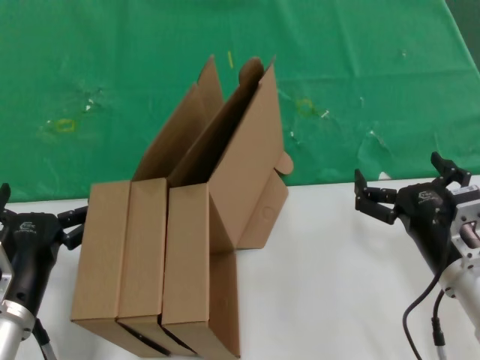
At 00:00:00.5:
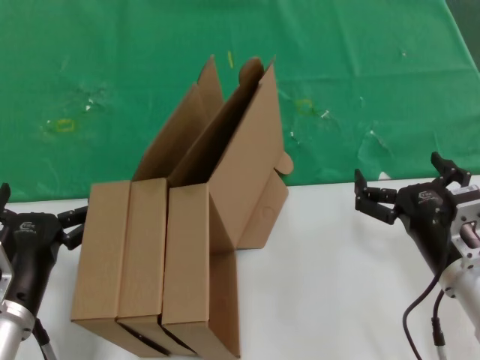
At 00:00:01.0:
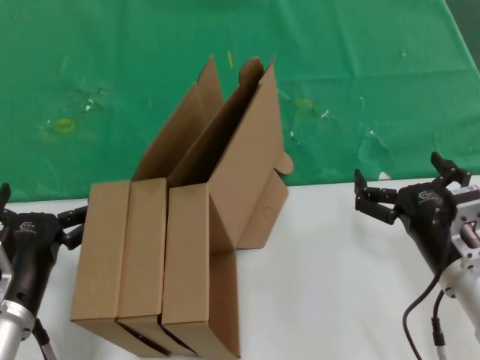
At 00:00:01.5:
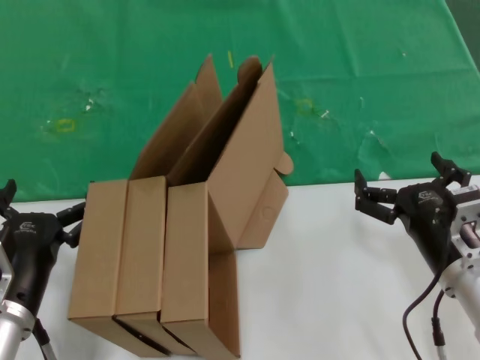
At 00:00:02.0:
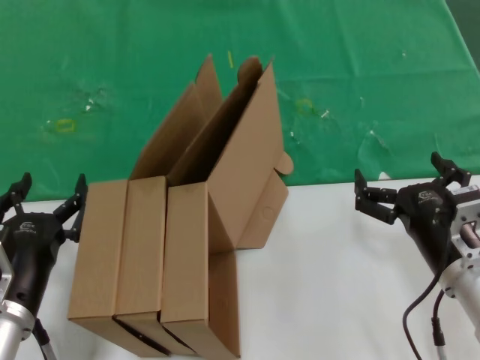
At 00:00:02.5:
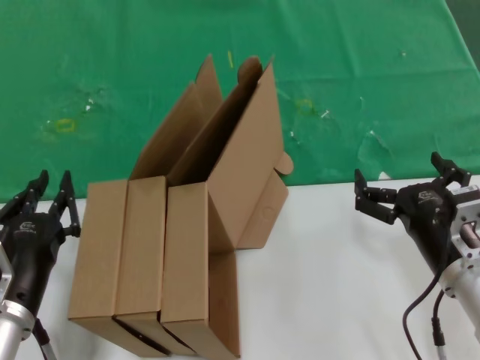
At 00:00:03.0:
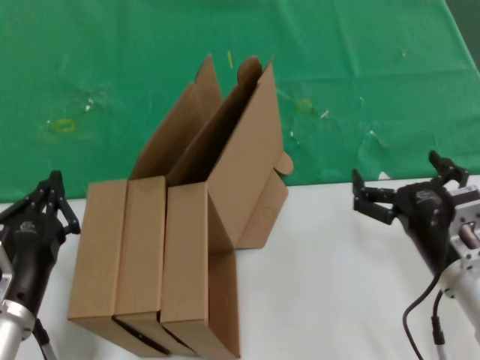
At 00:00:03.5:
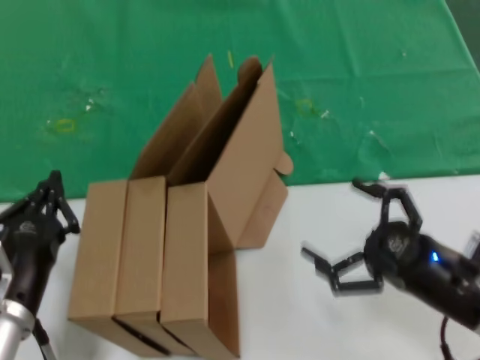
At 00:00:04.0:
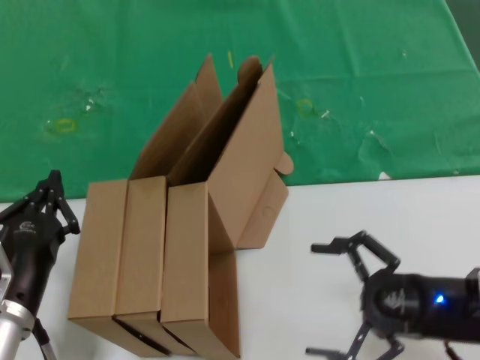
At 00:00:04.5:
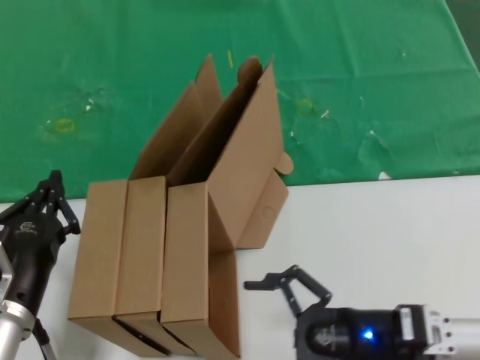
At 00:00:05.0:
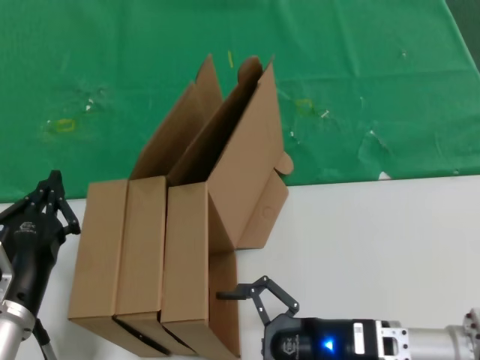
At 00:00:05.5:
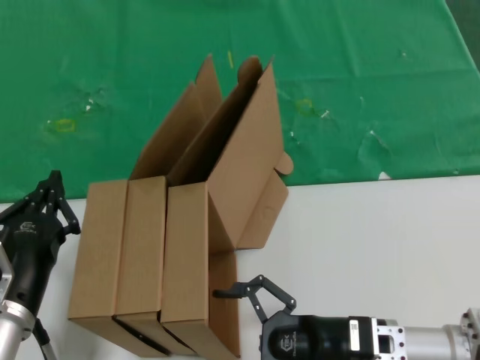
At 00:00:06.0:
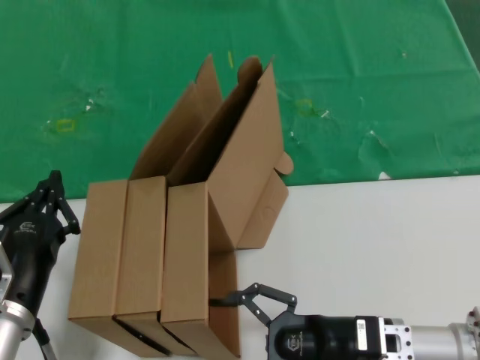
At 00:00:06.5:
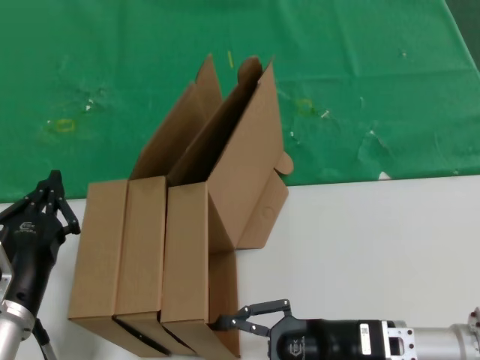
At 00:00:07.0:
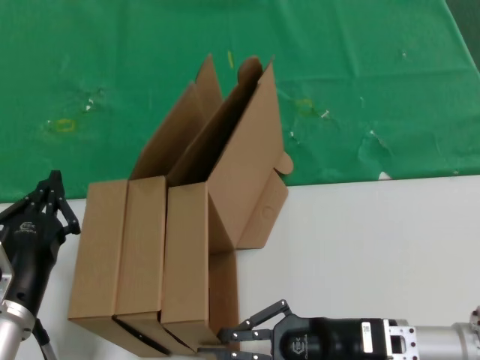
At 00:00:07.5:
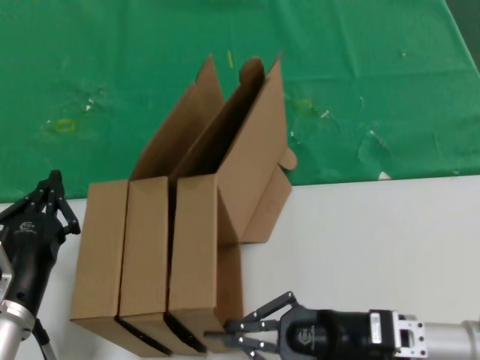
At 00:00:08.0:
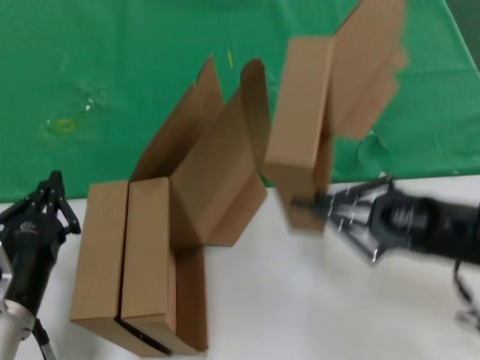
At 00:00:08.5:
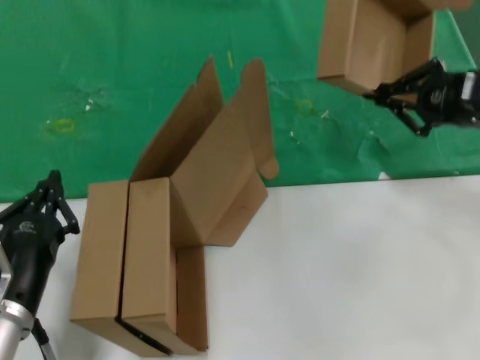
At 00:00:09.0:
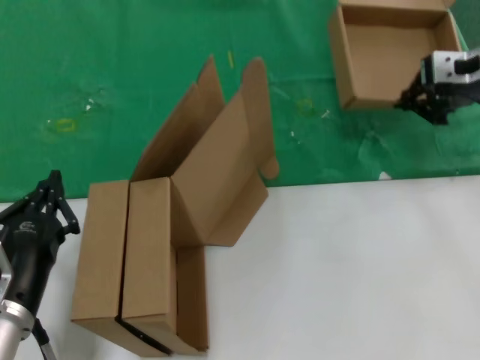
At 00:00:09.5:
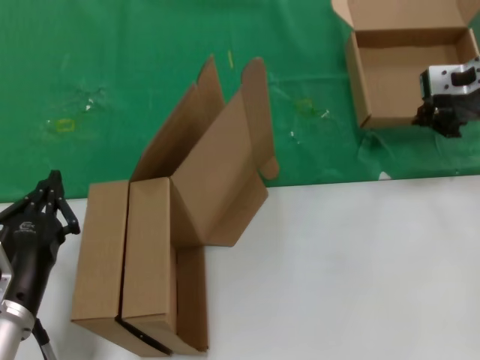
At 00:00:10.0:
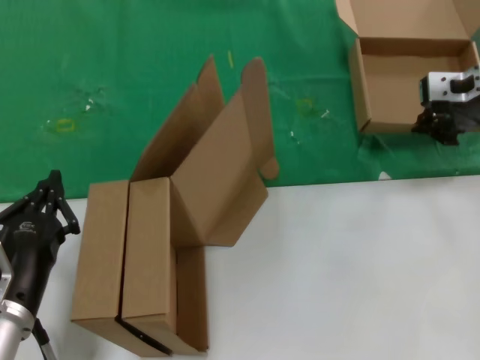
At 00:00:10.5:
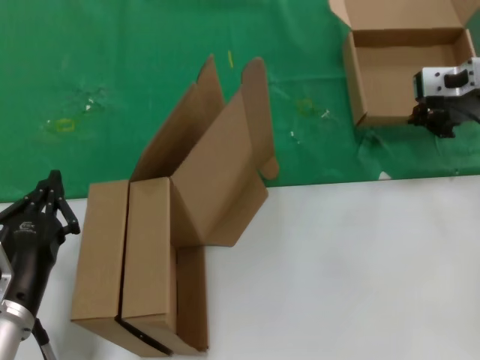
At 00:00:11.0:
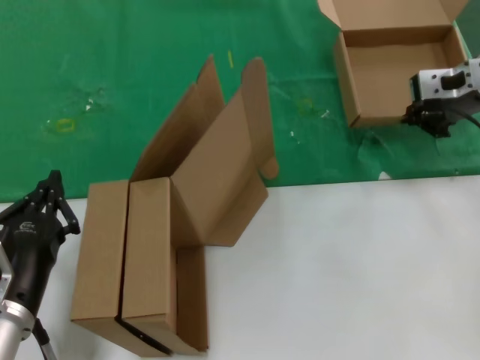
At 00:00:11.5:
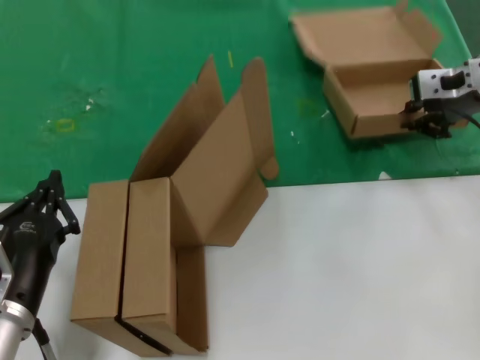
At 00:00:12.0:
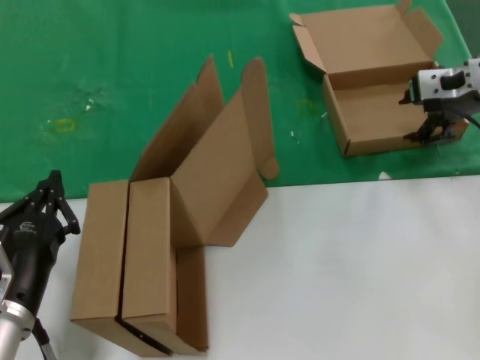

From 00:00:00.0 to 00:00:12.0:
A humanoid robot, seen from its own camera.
Task of the whole recording: pick up the paper box and put it at the back.
Step, from 00:00:00.0 to 00:00:07.0: Grasp the paper box.
From 00:00:00.0 to 00:00:02.0: Neither hand changes place.
From 00:00:02.0 to 00:00:04.0: The right hand goes roughly 10 cm to the right.
From 00:00:04.0 to 00:00:06.0: The right hand travels to the left and downward by some 15 cm.
From 00:00:06.0 to 00:00:08.0: The right hand goes about 15 cm upward and to the right.
From 00:00:08.0 to 00:00:10.0: The right hand travels forward and upward by approximately 25 cm.
From 00:00:10.0 to 00:00:12.0: The hands stay close to where they were, moving slightly.

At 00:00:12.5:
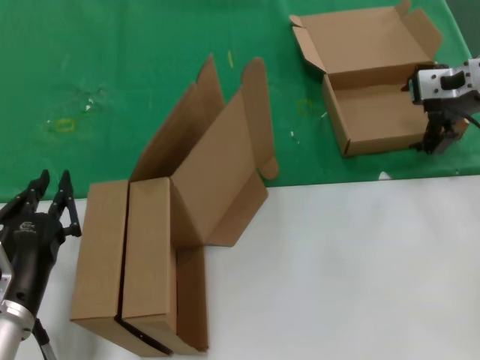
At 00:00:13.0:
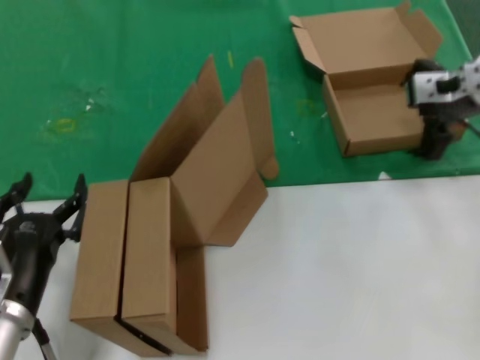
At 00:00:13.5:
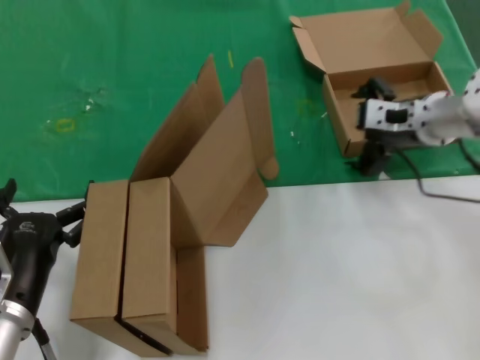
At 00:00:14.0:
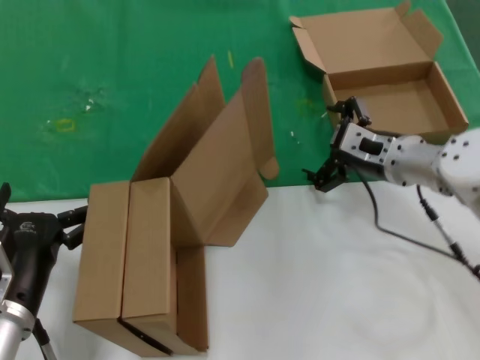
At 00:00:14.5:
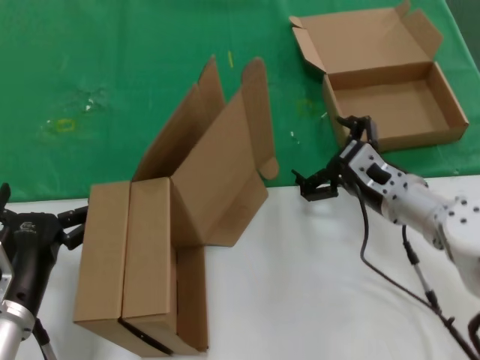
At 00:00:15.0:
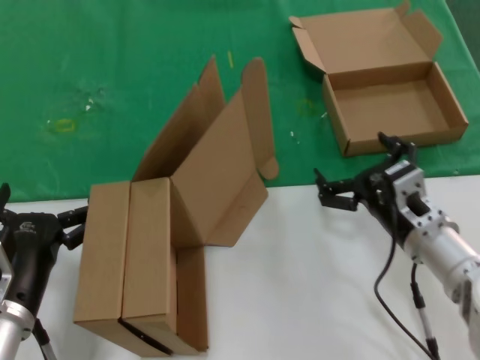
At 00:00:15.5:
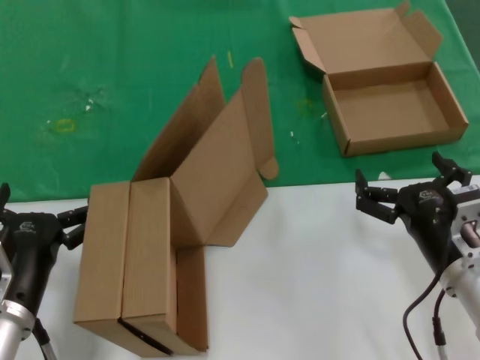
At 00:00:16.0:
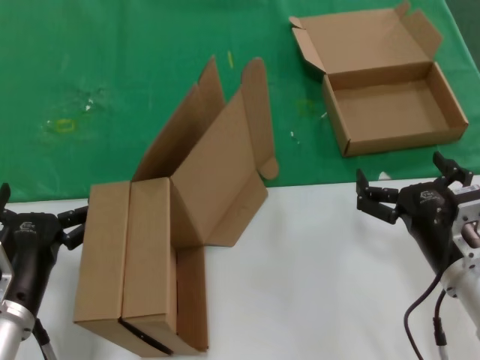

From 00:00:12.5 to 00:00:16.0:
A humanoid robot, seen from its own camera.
Task of the whole recording: pick up the paper box and put it at the back.
From 00:00:12.5 to 00:00:14.5: The right hand travels downward, to the left and backward by roughly 25 cm.
From 00:00:14.5 to 00:00:16.0: The right hand moves backward, about 15 cm.
